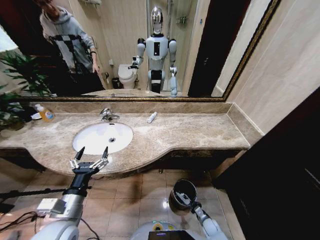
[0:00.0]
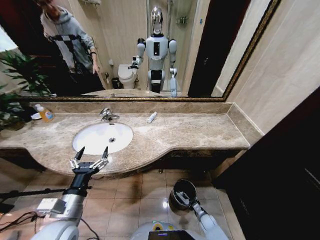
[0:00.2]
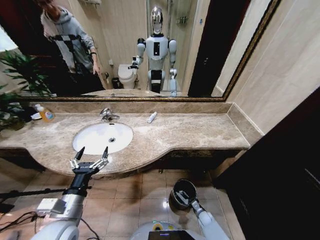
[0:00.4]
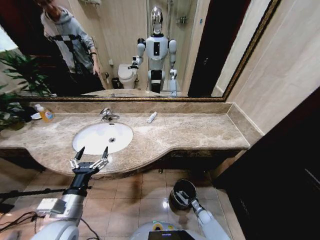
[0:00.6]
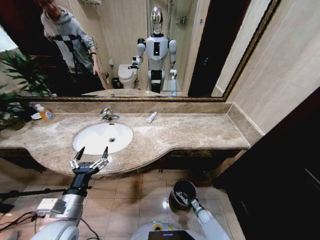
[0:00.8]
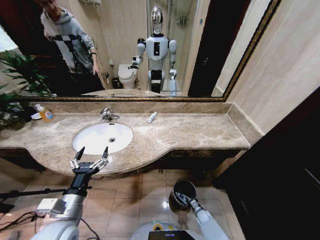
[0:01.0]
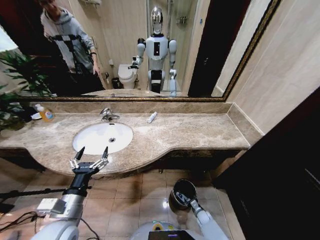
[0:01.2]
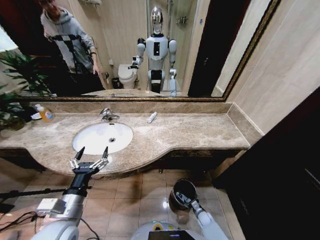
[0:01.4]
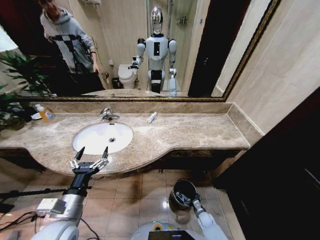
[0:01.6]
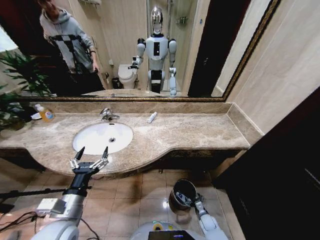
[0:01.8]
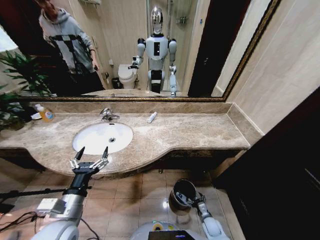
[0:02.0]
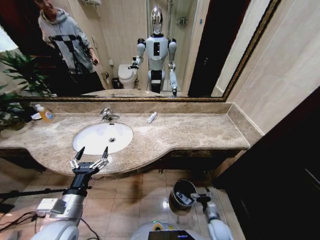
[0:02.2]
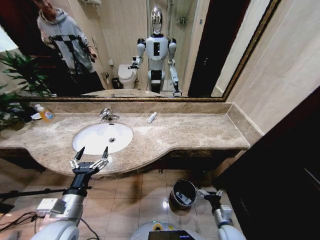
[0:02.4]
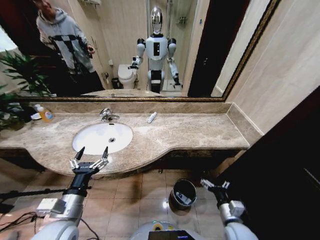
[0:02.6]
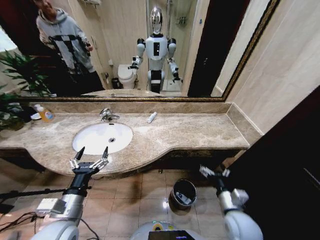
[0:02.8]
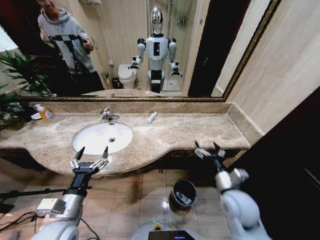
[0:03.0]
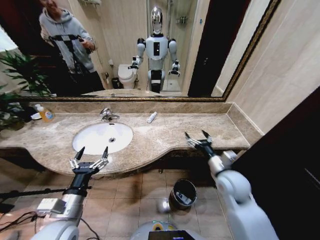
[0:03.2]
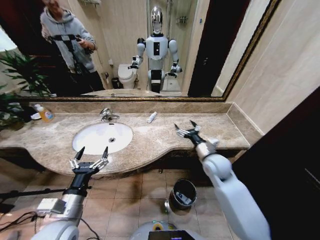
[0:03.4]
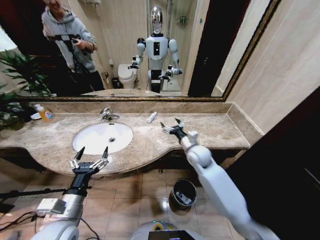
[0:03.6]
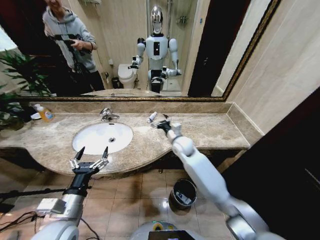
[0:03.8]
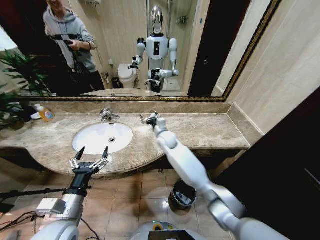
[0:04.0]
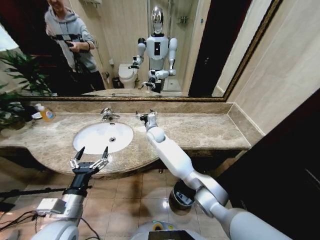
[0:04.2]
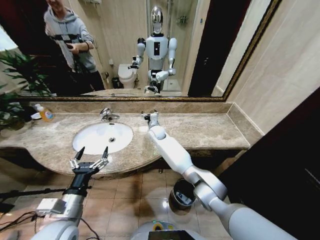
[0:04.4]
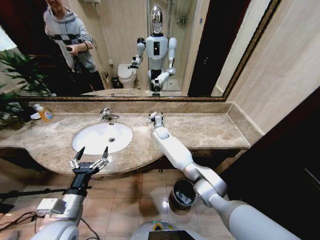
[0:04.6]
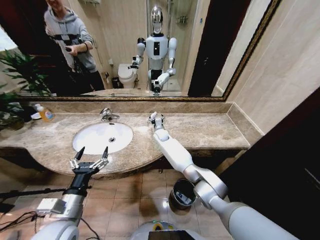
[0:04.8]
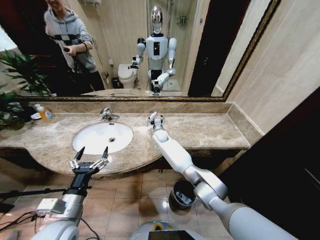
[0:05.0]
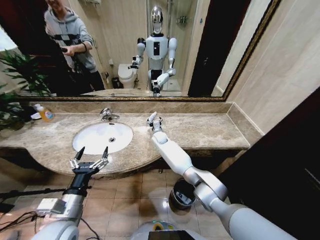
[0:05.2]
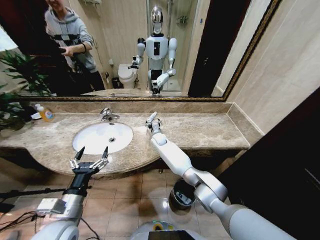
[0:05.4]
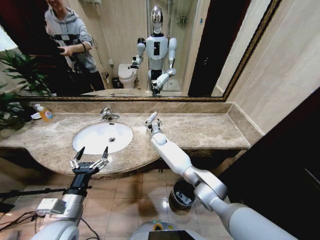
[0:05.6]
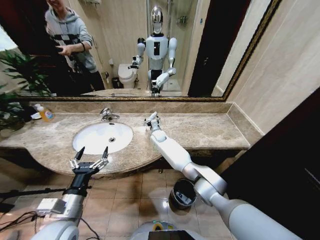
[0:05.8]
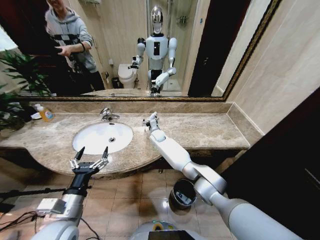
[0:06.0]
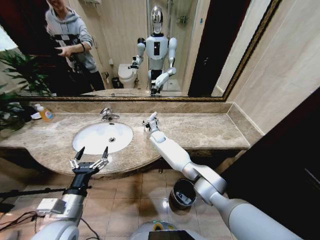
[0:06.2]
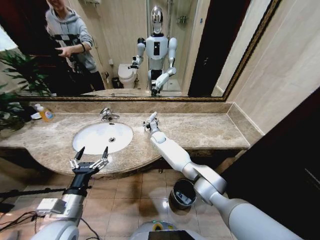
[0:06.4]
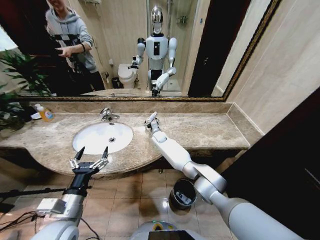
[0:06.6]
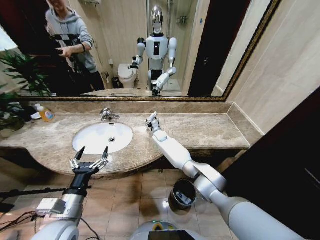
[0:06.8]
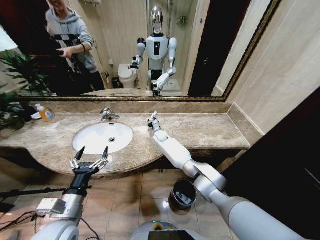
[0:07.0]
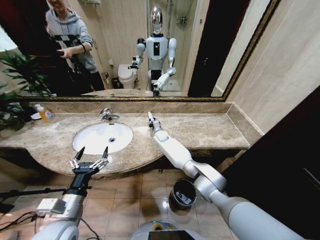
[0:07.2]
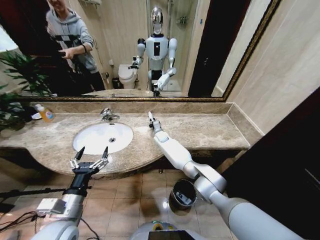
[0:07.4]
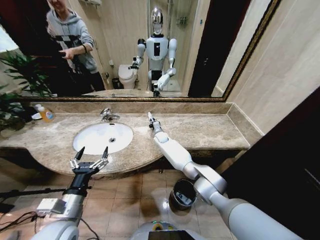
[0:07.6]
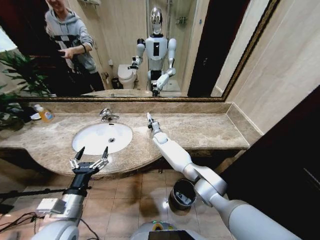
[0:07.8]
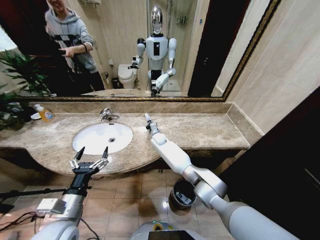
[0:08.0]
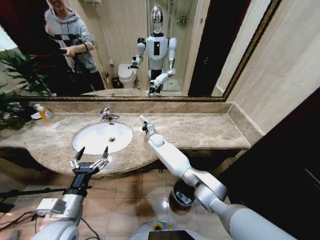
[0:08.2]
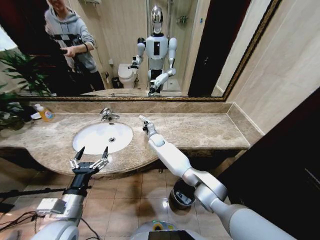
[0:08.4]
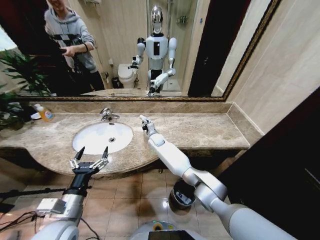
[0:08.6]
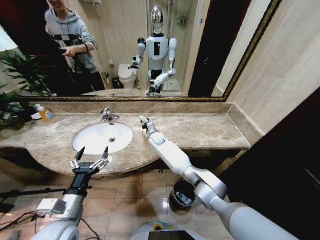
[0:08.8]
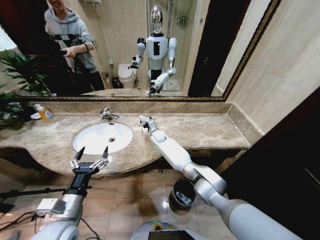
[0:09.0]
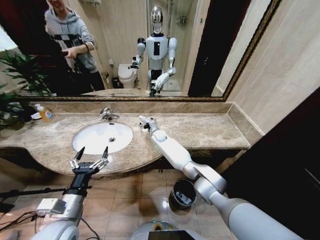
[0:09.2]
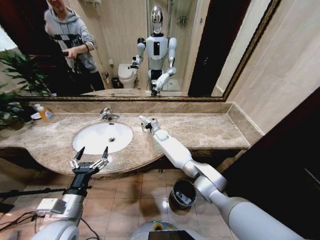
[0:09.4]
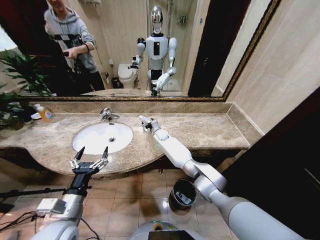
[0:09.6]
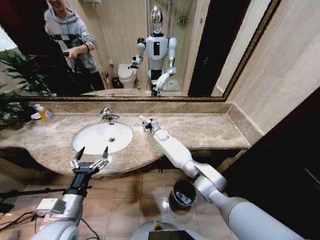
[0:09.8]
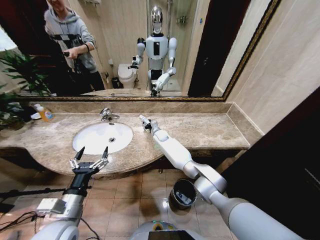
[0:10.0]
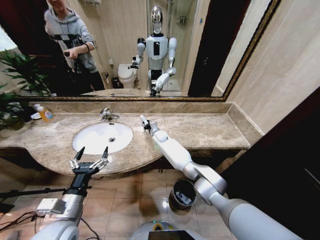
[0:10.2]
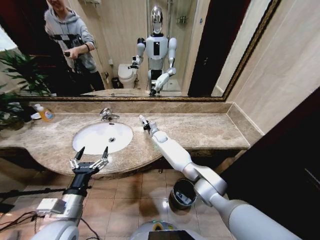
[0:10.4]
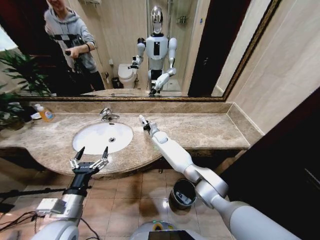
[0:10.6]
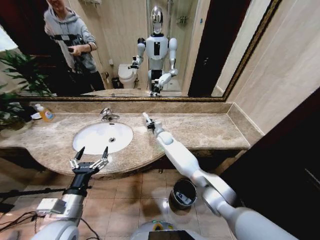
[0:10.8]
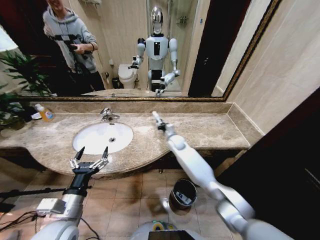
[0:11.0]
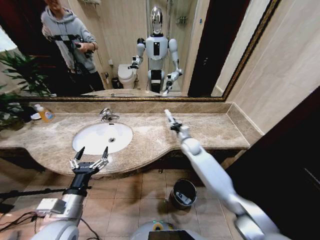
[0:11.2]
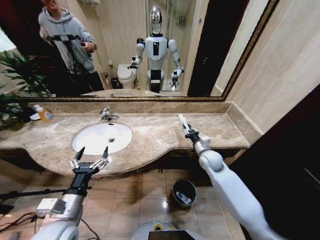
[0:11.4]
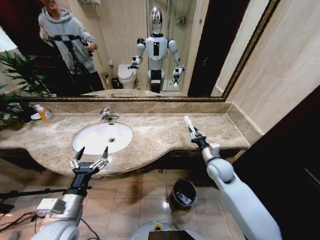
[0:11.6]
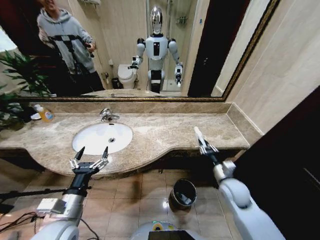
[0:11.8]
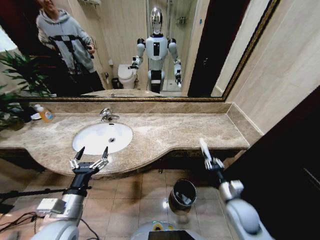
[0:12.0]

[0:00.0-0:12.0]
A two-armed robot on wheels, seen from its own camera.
Task of the whole recording: Pick up the trash from the sink and place it in the trash bin.
0:00.0 to 0:01.6: The right gripper opens its fingers.
0:01.6 to 0:03.0: The right gripper shifts approximately 40 cm upward.
0:03.0 to 0:04.4: The right gripper moves forward and to the left, about 40 cm.
0:04.4 to 0:06.0: The right gripper heads downward, covering approximately 5 cm.
0:06.0 to 0:07.6: The right gripper closes.
0:07.6 to 0:09.0: The right gripper opens.
0:09.0 to 0:10.4: The right gripper closes.
0:10.4 to 0:12.0: The right gripper travels backward and to the right by some 50 cm.

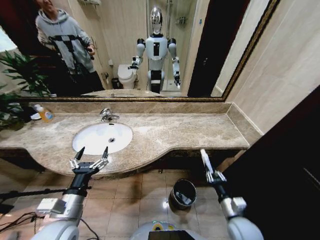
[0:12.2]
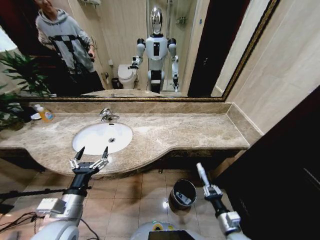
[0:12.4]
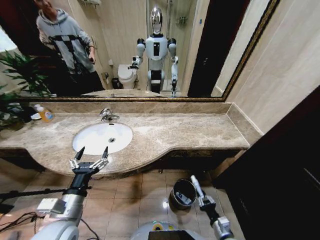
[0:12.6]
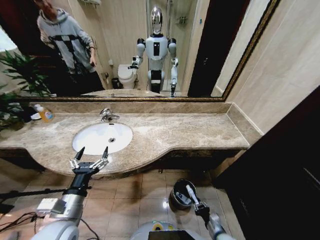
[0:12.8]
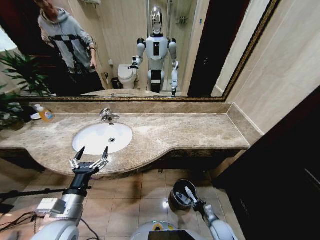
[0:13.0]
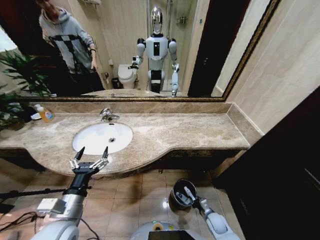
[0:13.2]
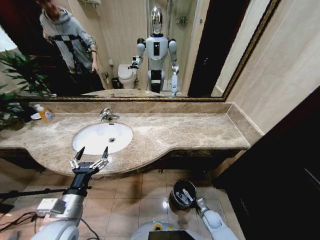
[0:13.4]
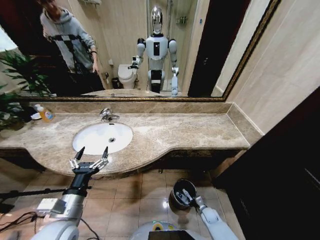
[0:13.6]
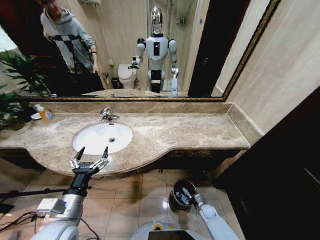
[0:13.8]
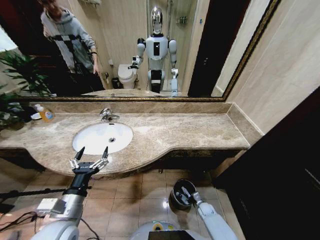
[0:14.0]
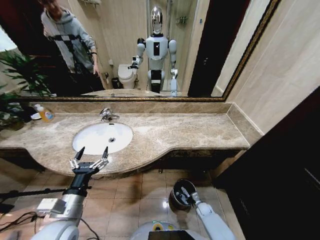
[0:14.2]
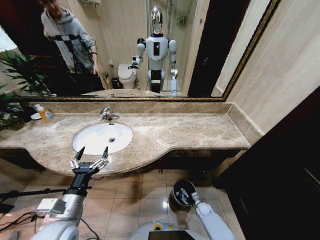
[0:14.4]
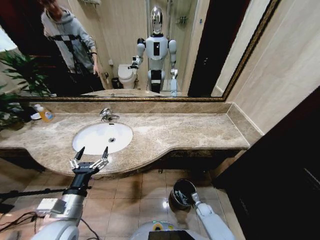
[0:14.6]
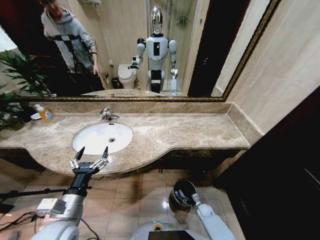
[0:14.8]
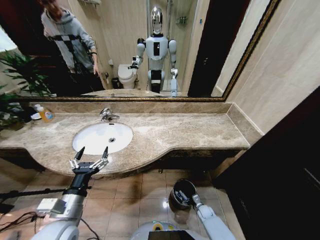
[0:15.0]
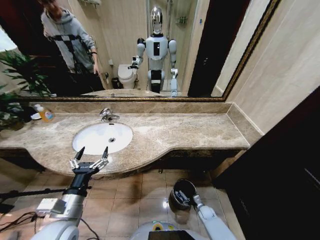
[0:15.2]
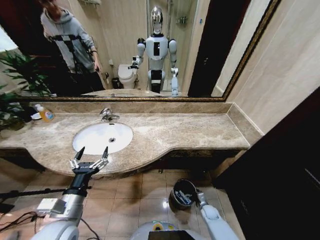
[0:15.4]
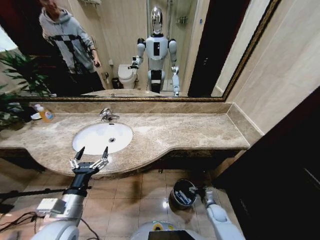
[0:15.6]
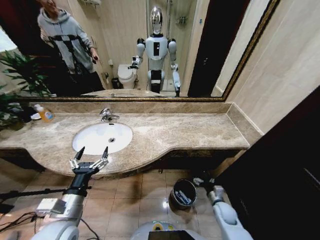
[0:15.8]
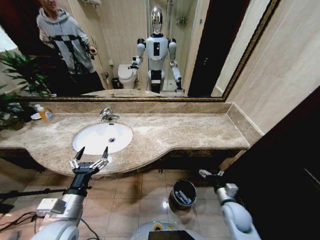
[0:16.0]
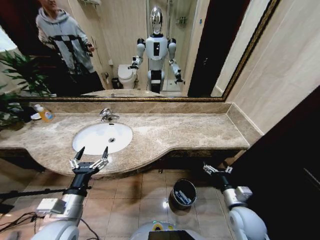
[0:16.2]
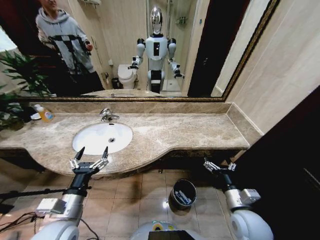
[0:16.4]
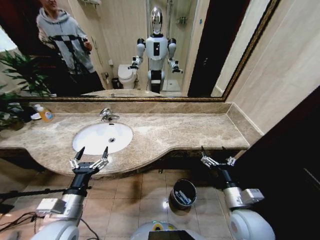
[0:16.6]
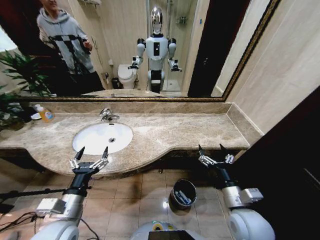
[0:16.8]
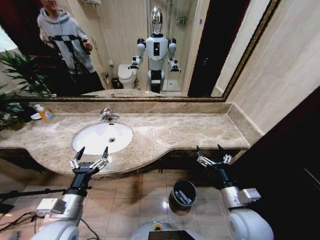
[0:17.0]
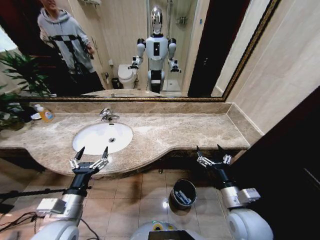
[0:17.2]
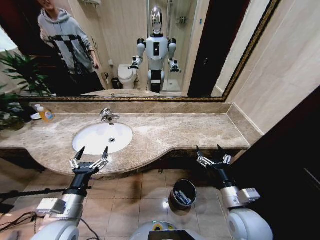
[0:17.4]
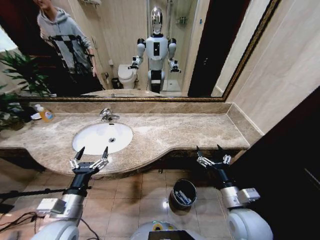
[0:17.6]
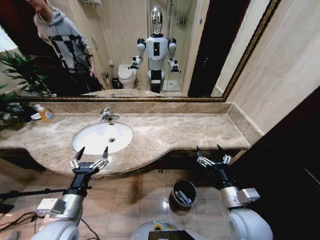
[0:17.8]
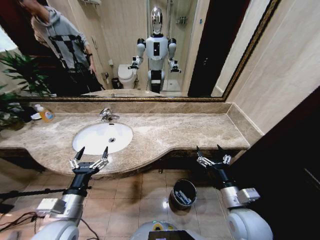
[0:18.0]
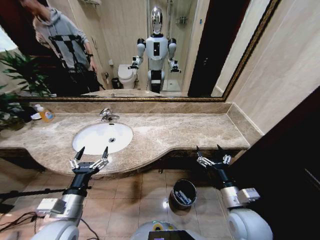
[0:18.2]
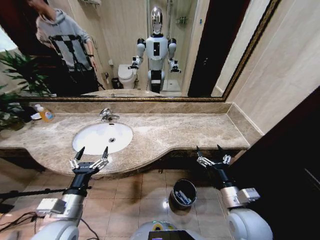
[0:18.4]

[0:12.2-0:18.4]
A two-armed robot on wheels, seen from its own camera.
Task of the whole recording: Pick up the trash from the sink and place it in the trash bin.
0:12.2 to 0:13.8: The right gripper goes approximately 25 cm downward.
0:13.8 to 0:15.4: The right gripper opens.
0:15.4 to 0:16.8: The right gripper shifts roughly 35 cm upward.
0:16.8 to 0:18.4: The two grippers keep their place.

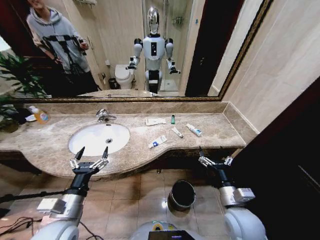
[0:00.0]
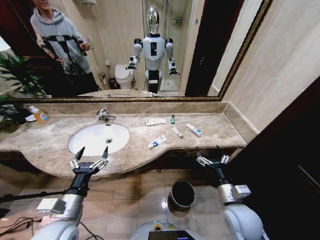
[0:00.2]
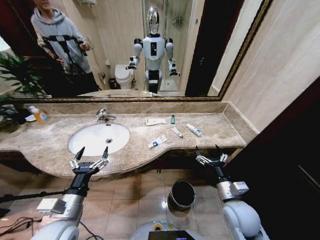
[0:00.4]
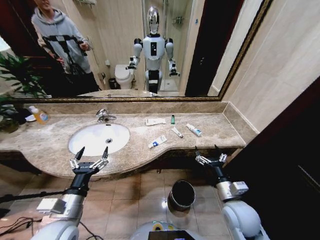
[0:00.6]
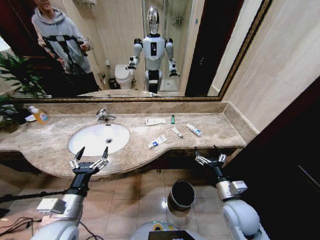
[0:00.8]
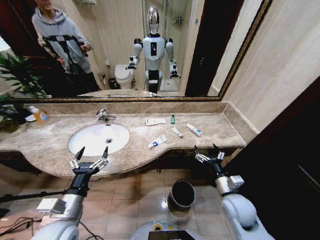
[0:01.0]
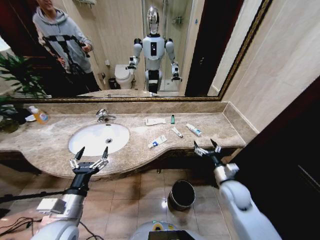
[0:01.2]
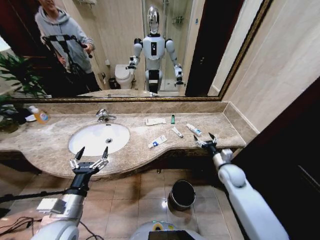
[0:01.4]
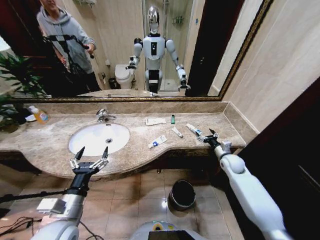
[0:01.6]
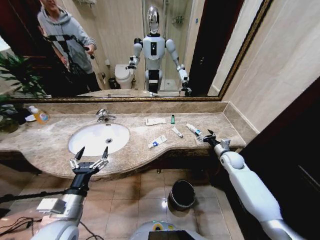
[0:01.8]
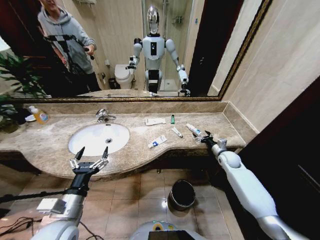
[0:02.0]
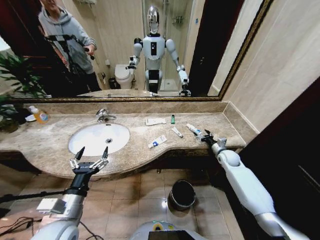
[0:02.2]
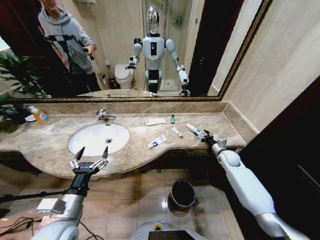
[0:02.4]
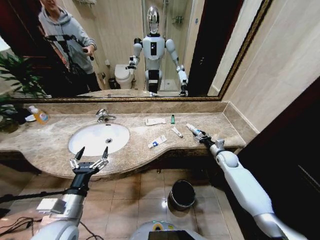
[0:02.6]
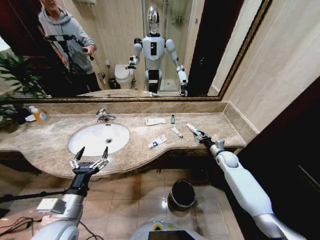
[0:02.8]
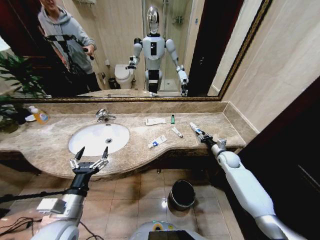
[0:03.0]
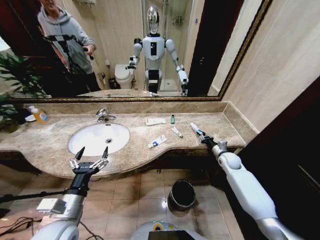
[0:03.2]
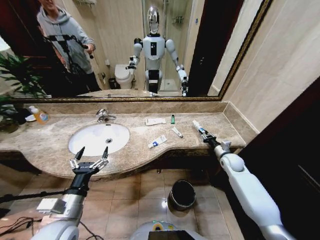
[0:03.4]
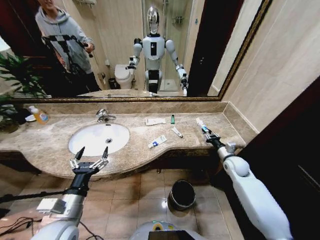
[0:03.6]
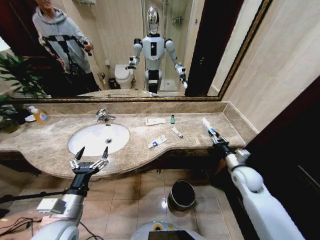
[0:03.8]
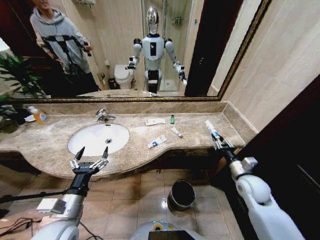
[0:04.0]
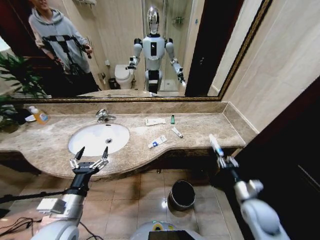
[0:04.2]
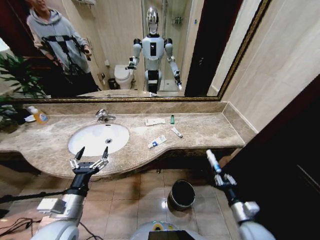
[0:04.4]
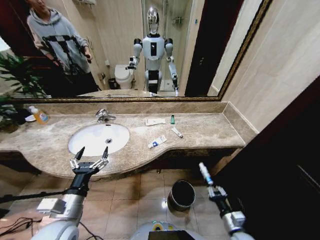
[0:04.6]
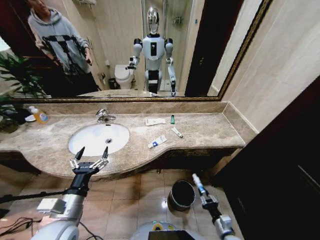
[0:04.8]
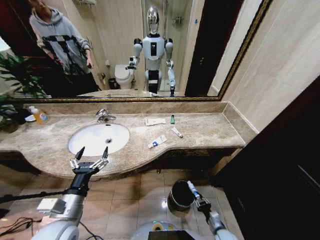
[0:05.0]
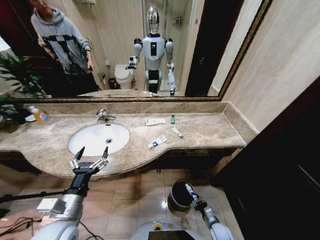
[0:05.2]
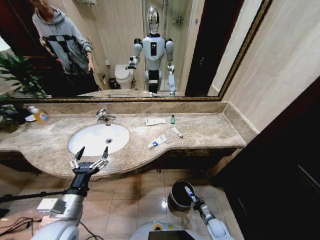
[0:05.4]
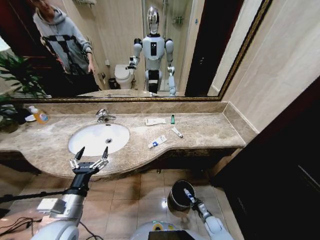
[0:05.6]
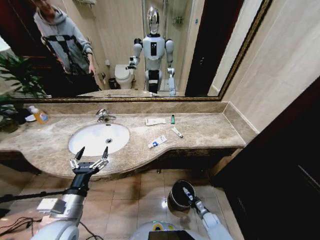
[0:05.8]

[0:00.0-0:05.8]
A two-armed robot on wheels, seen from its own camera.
Task of the whole recording: Pick up the trash from the sink and place it in the trash bin.
0:01.4 to 0:02.8: The right gripper is displaced forward by some 10 cm, and closes.
0:02.8 to 0:04.4: The right gripper travels backward by approximately 30 cm.
0:04.4 to 0:05.8: The right gripper goes roughly 30 cm downward.
